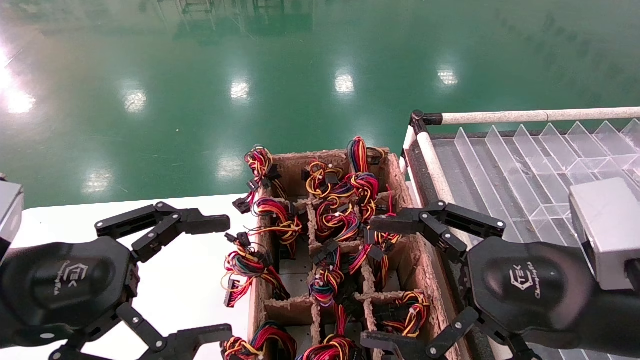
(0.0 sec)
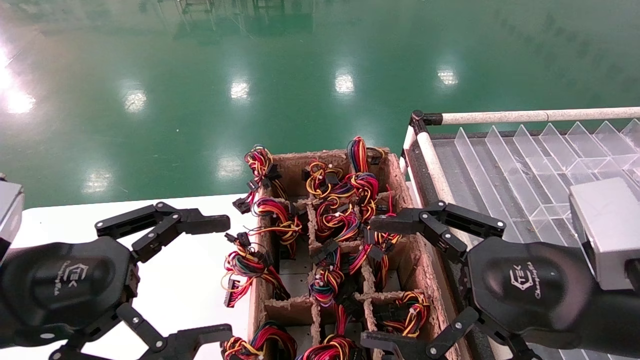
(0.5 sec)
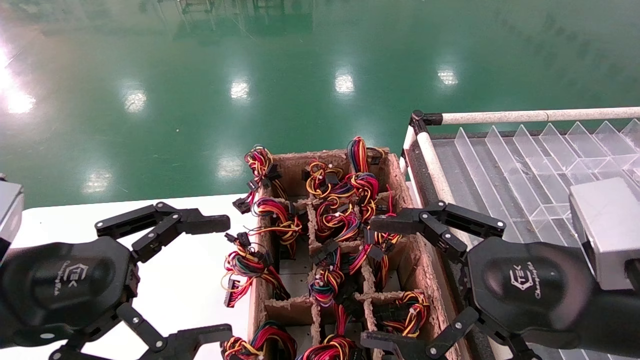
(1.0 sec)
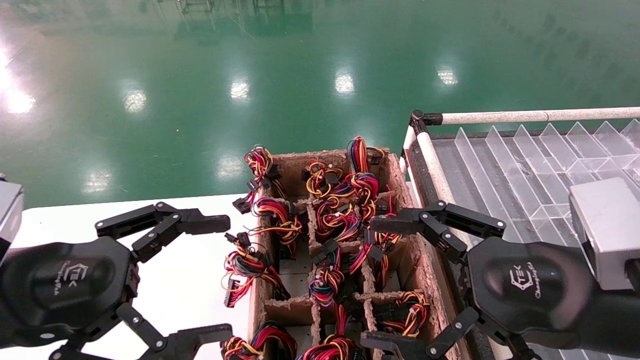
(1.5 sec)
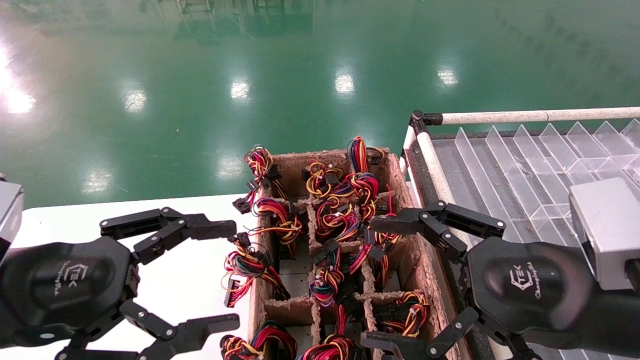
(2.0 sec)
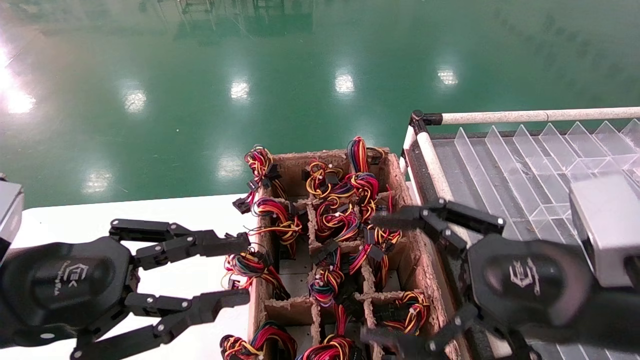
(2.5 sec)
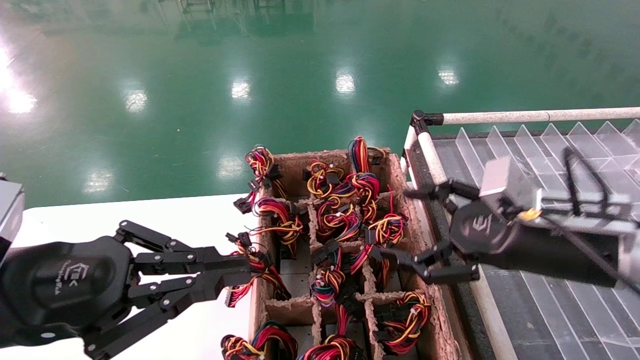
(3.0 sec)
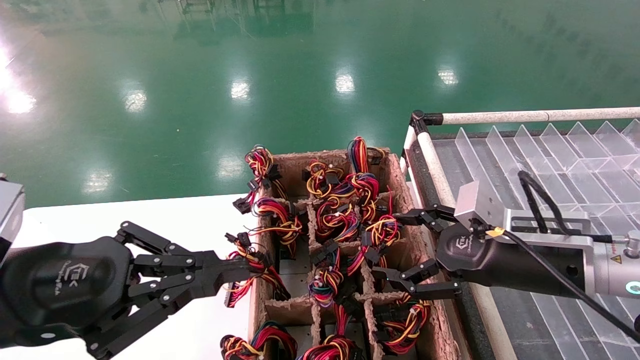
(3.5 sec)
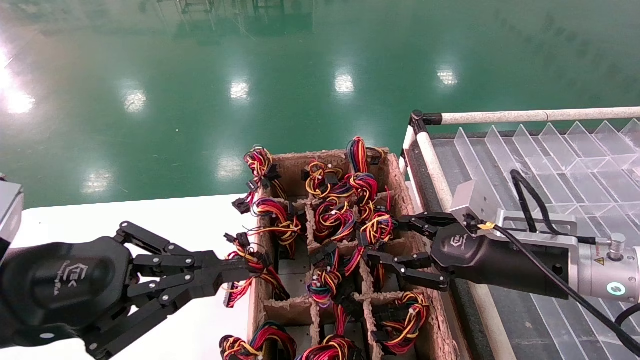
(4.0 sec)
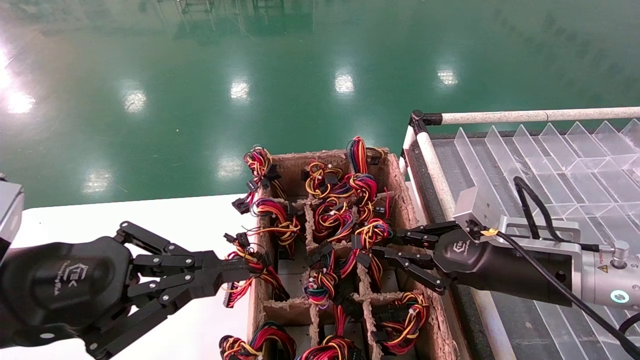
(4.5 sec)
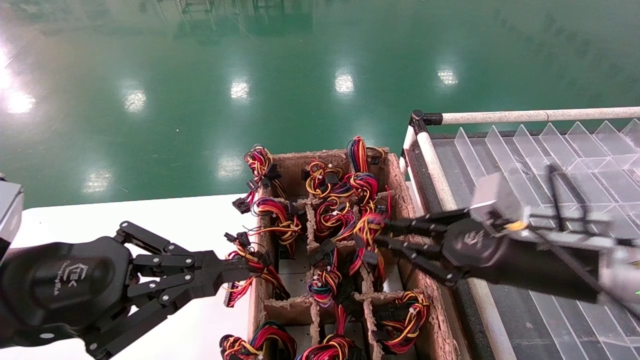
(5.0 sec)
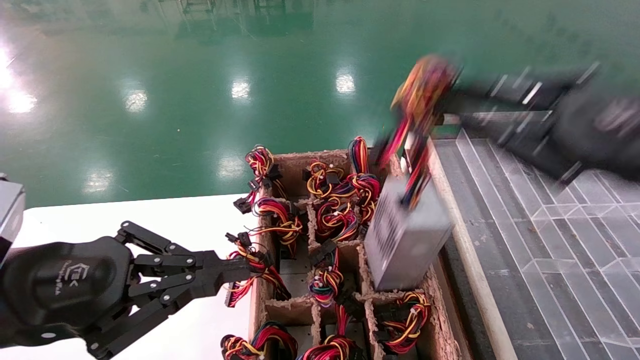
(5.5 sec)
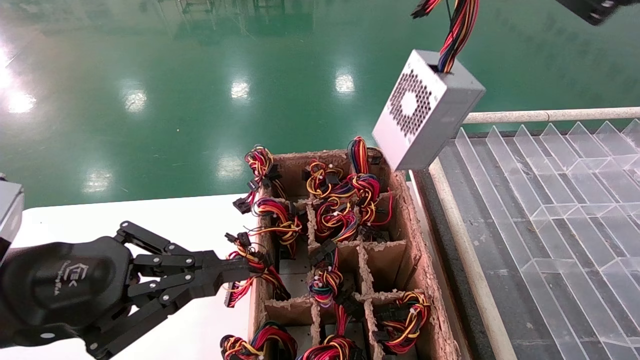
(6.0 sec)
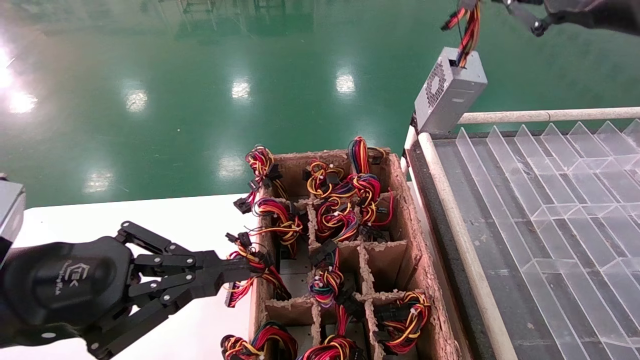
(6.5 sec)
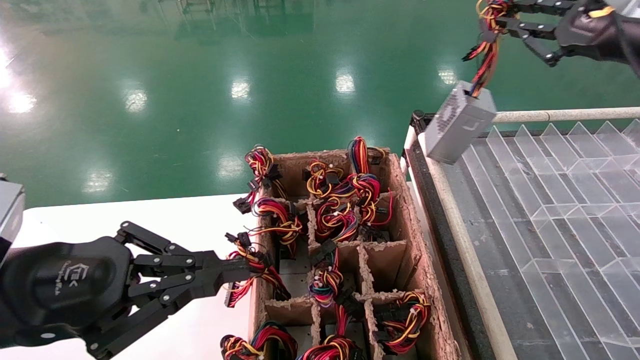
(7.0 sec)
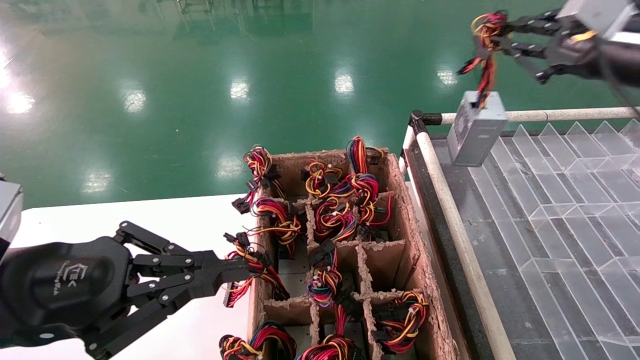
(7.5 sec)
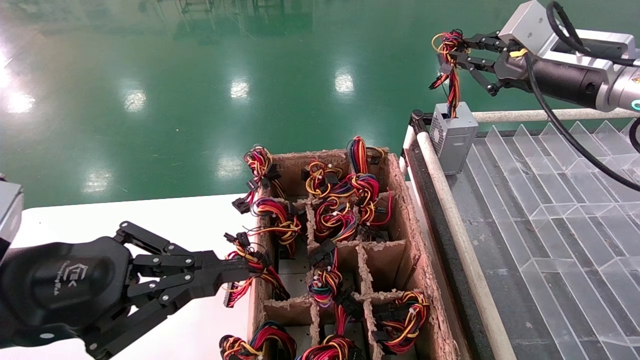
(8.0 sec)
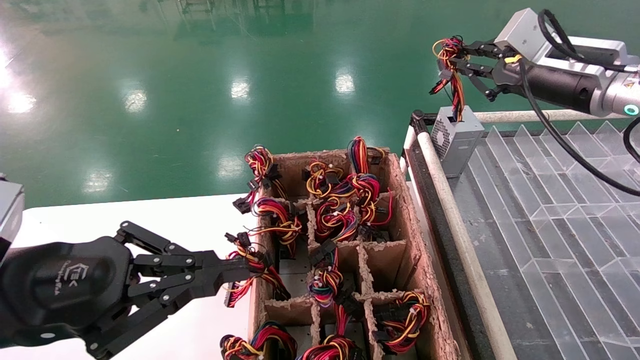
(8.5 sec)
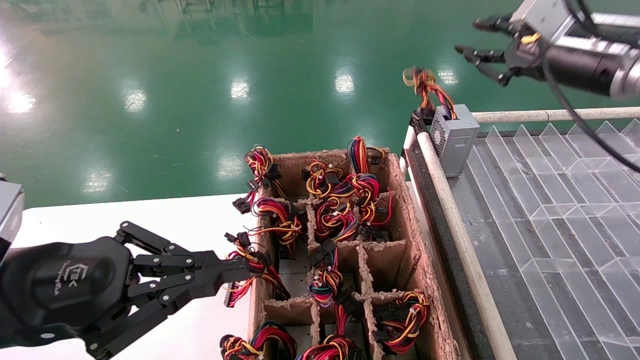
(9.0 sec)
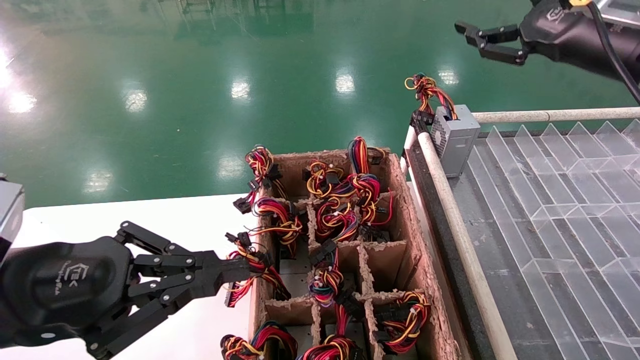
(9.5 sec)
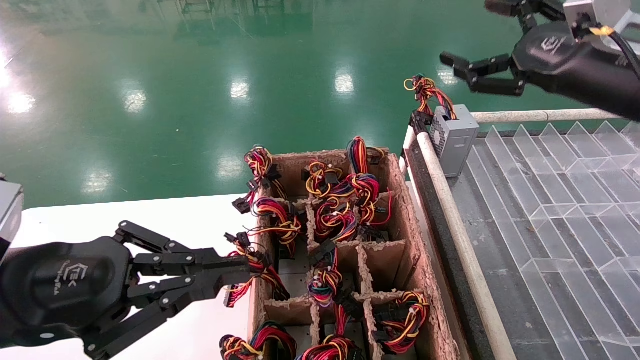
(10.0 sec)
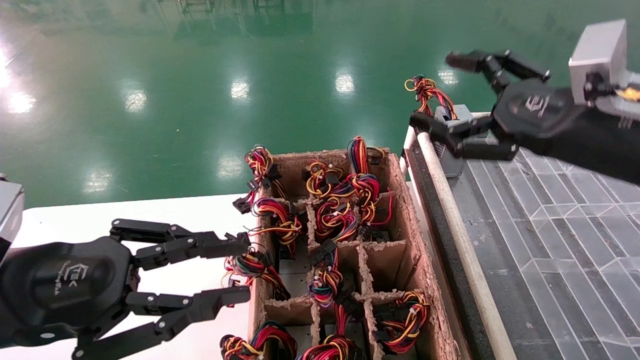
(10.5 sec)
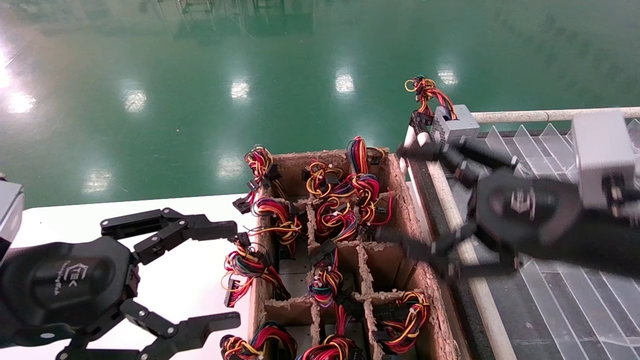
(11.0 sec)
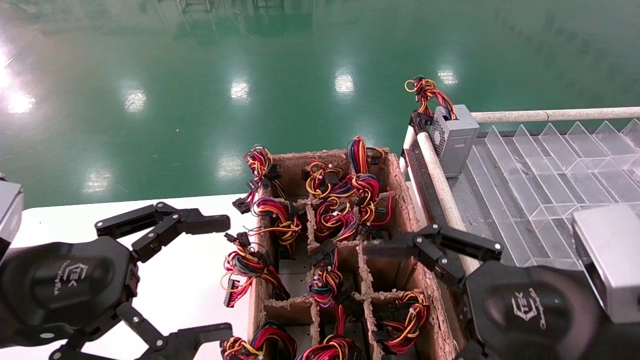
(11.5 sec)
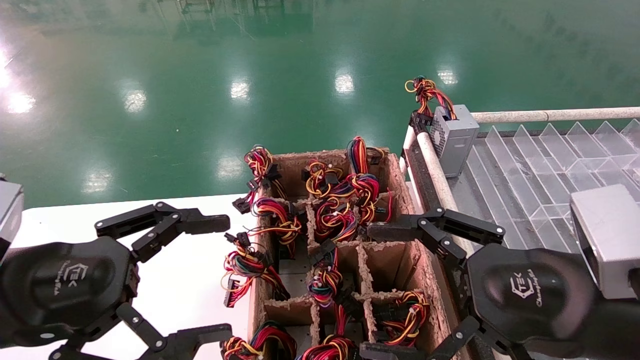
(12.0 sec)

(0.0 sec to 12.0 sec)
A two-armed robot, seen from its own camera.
Step, 3.0 sec - 4.5 sec: Grab the main unit power supply from the containment box.
Step, 5.0 sec - 9.0 sec: Place the main unit power supply in the designated area.
0.0 sec - 2.0 sec: The two grippers keep their place.
2.0 sec - 4.0 sec: The left gripper closes up; the right gripper moves forward, roughly 10 cm, and closes.
4.0 sec - 6.0 sec: The right gripper goes about 25 cm upward, and closes.
6.0 sec - 8.0 sec: The right gripper travels forward by roughly 20 cm.
8.0 sec - 10.0 sec: The right gripper travels backward by about 5 cm, and opens.
10.0 sec - 12.0 sec: The right gripper travels backward, downward and to the left by approximately 20 cm. The left gripper opens.

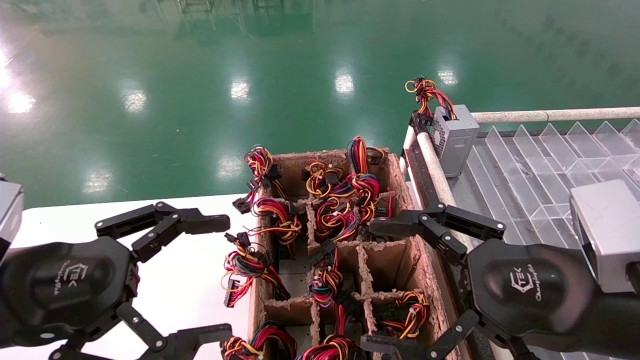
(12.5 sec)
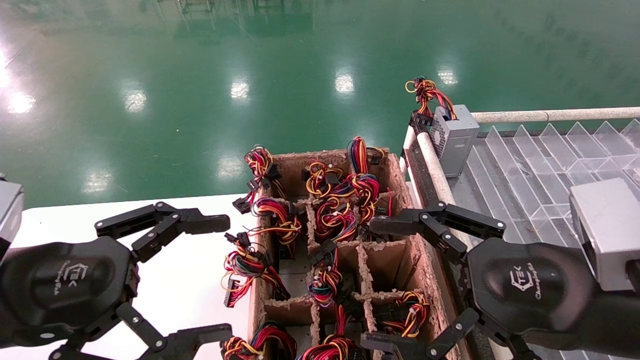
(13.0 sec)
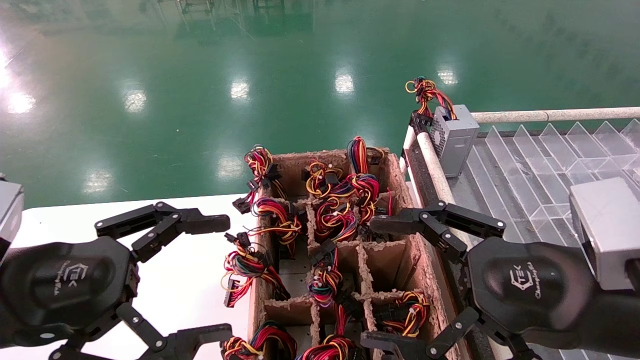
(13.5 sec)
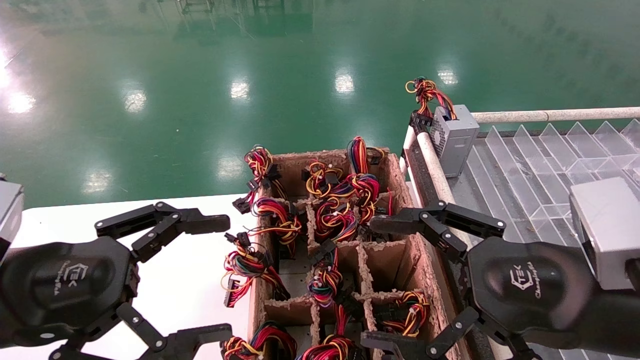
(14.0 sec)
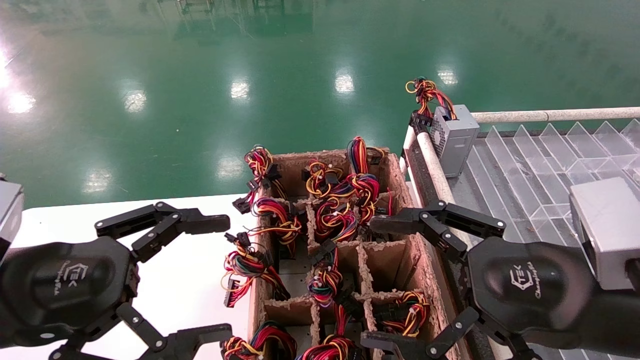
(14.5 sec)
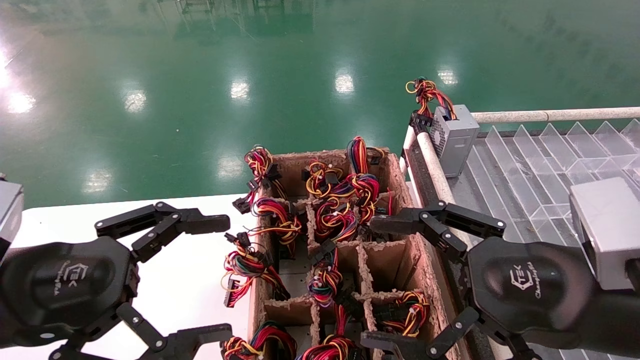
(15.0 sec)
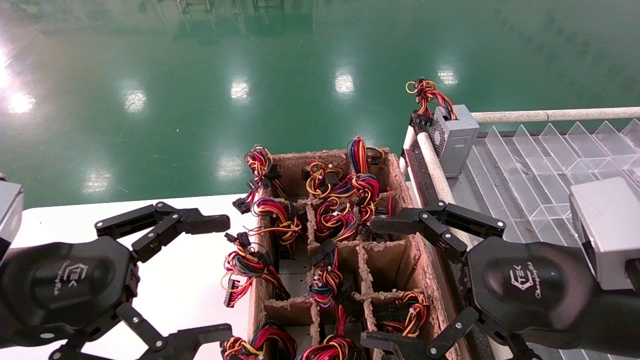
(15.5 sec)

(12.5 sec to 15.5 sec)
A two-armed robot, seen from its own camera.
12.5 sec - 15.5 sec: Both grippers stay put.
